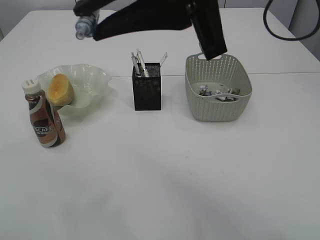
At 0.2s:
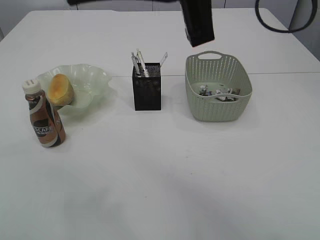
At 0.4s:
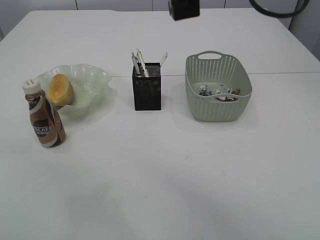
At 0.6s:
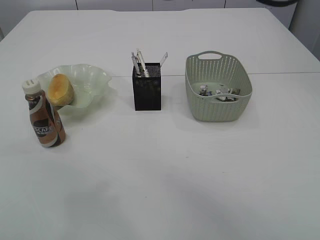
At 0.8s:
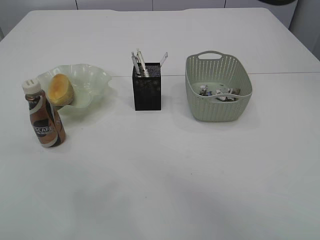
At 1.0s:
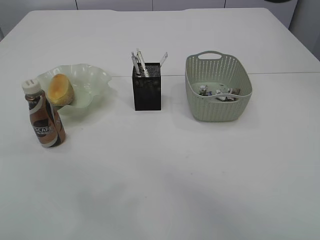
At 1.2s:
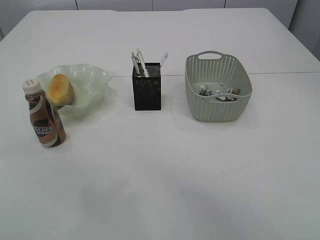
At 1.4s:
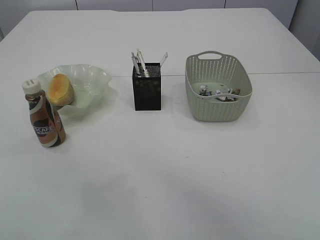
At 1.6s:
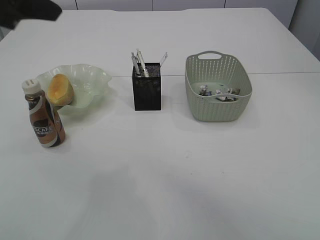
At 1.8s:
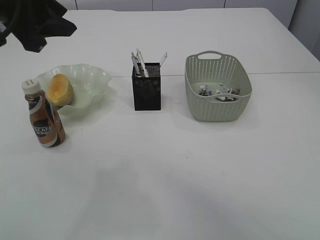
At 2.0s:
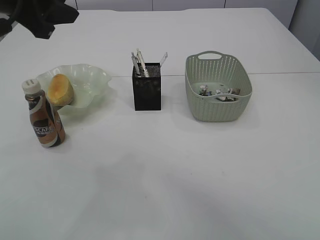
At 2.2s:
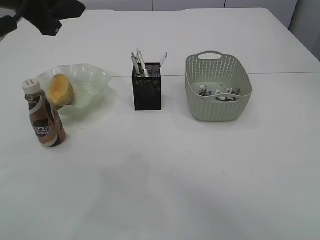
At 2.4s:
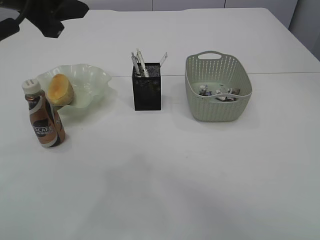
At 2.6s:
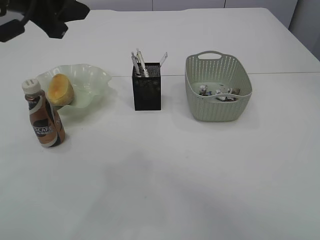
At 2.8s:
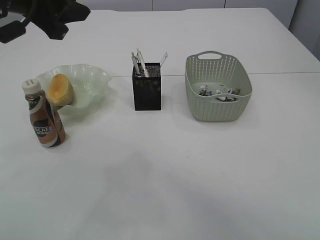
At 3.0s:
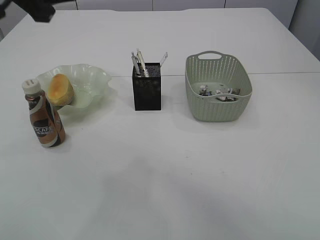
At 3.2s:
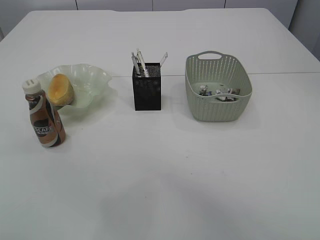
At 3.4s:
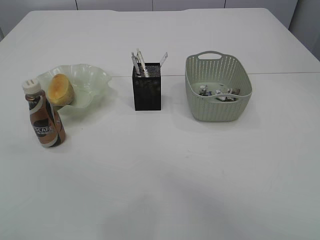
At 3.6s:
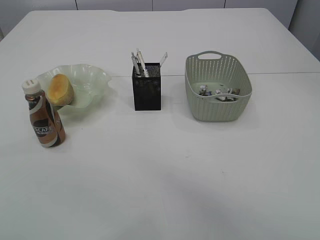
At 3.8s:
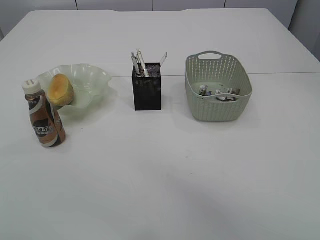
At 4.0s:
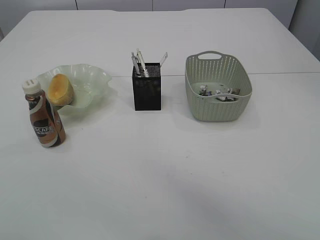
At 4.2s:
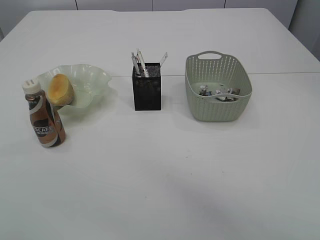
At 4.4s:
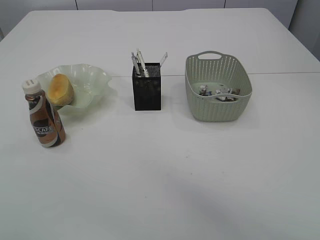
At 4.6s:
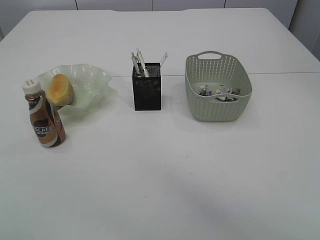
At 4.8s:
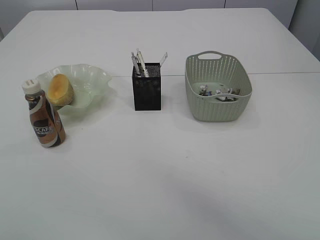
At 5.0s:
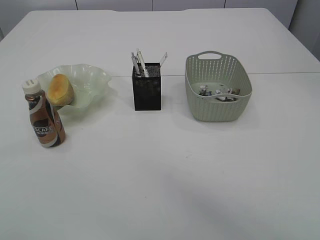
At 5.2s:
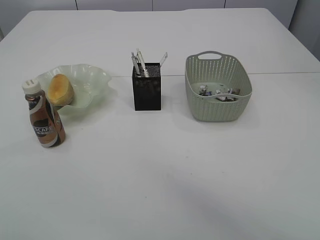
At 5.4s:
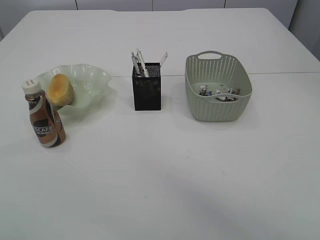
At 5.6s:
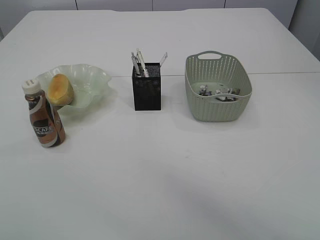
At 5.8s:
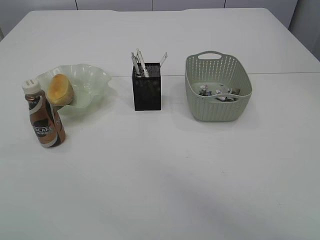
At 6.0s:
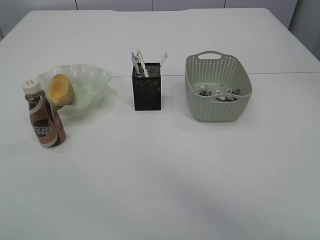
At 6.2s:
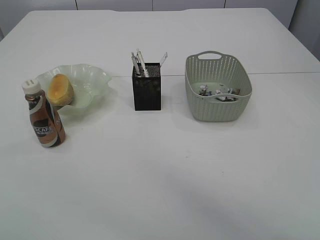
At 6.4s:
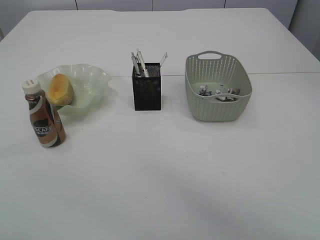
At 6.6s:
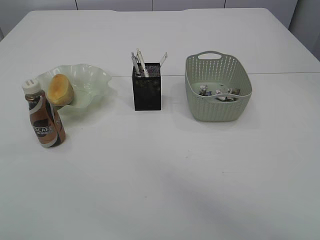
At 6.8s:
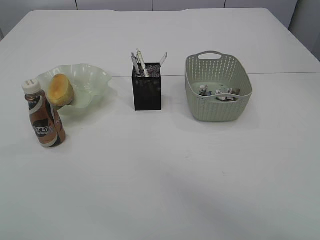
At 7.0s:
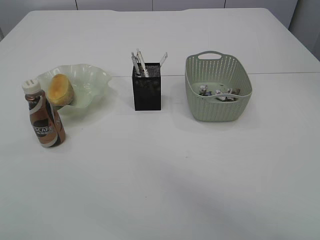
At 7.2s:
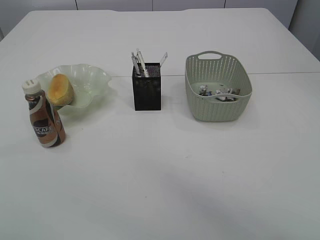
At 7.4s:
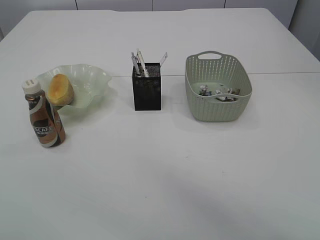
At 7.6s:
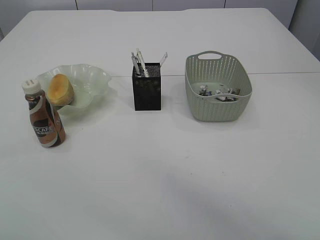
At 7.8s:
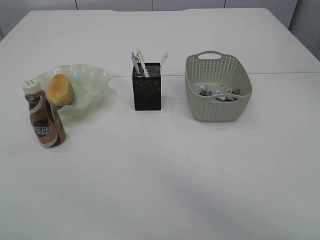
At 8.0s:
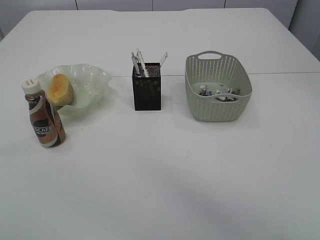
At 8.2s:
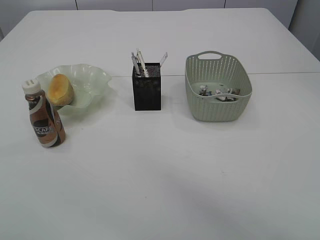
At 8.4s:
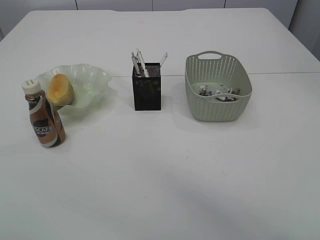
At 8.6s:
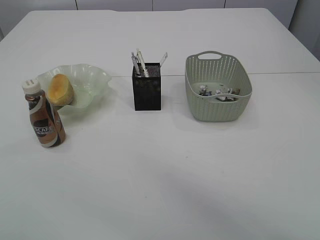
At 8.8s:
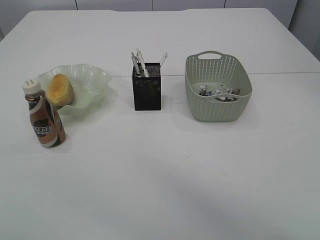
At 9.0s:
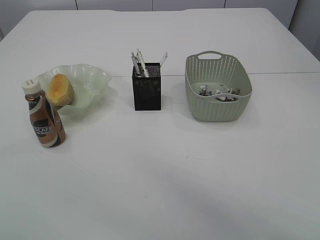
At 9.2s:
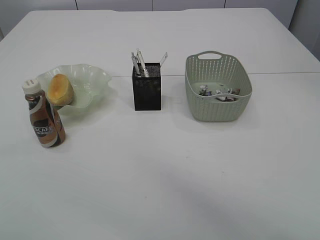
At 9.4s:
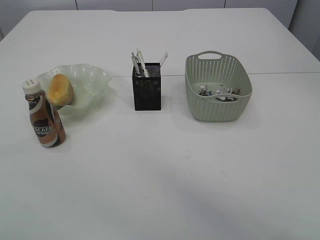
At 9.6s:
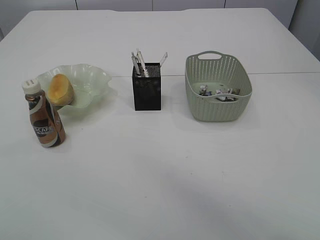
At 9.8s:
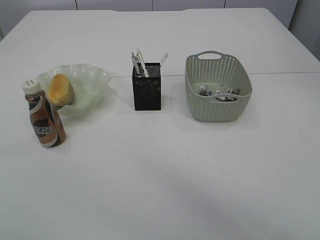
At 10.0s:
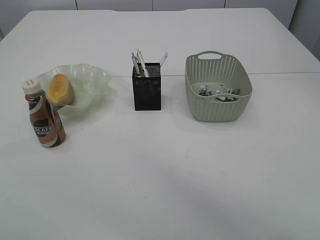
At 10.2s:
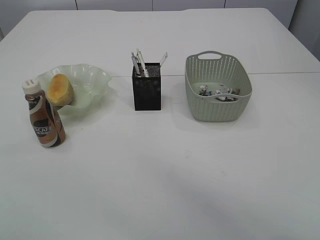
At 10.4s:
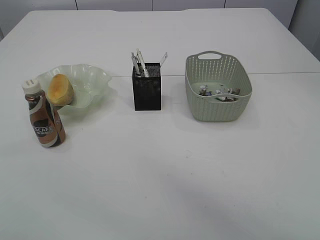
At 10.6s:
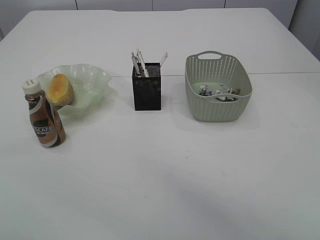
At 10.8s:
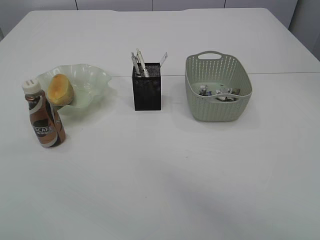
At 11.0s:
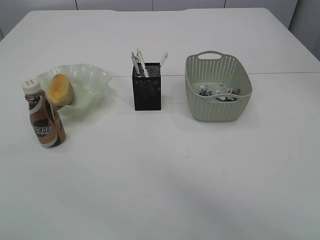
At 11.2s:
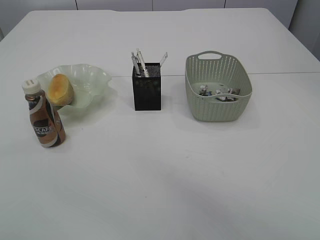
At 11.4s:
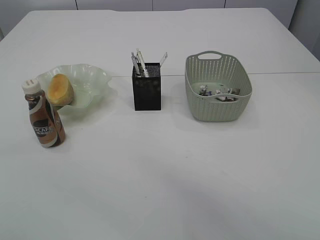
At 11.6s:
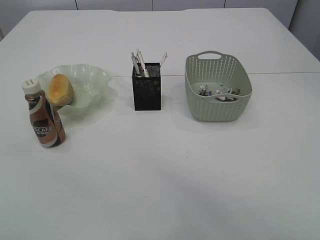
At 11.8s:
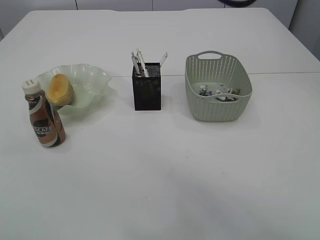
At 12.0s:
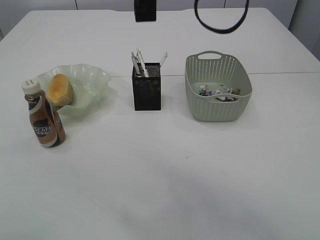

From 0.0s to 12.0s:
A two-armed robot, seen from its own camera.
From 0.0s to 1.6s: The left gripper moves downward, roughly 5 cm; the right gripper travels upward by some 5 cm.
From 1.6s to 3.0s: The grippers make only small movements.
From 3.0s to 4.4s: The left gripper moves backward and upward, roughly 15 cm.
From 6.0s to 7.6s: Neither gripper changes place.
From 7.6s to 10.4s: Both grippers stay put.
From 10.4s to 12.0s: The right gripper ends up approximately 5 cm from where it was. Meanwhile the left gripper travels forward by roughly 5 cm.

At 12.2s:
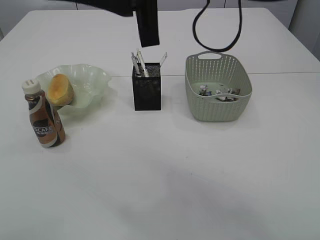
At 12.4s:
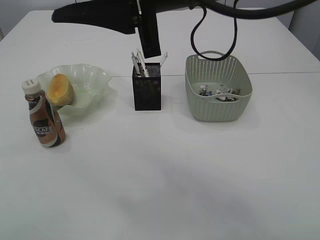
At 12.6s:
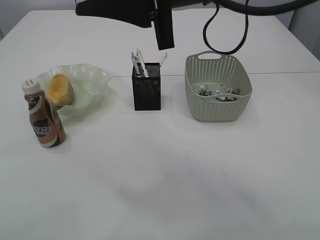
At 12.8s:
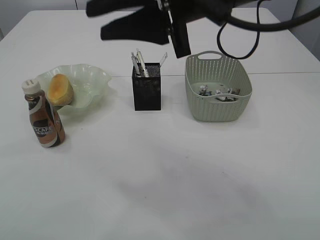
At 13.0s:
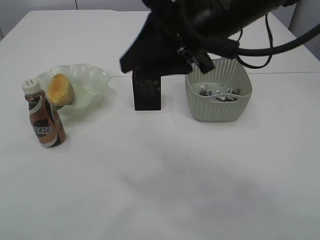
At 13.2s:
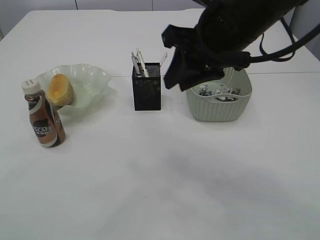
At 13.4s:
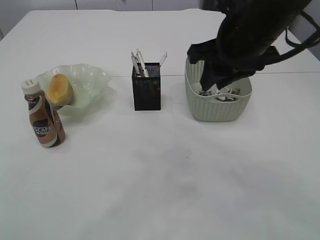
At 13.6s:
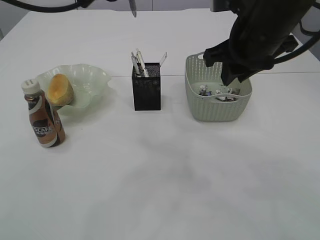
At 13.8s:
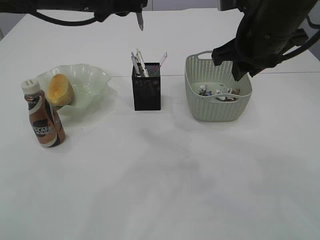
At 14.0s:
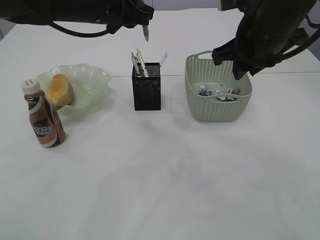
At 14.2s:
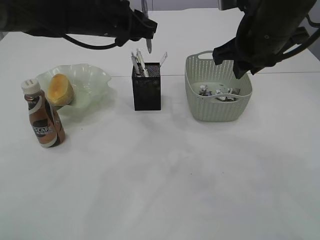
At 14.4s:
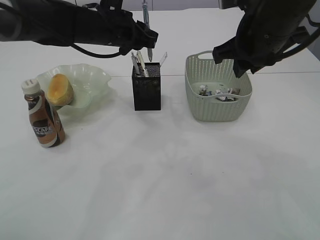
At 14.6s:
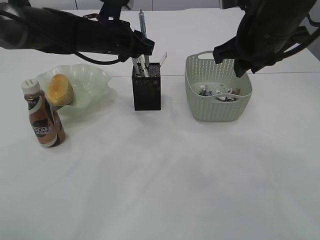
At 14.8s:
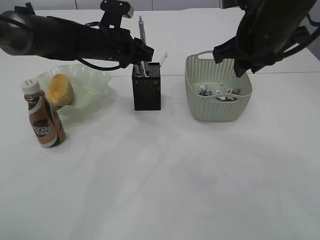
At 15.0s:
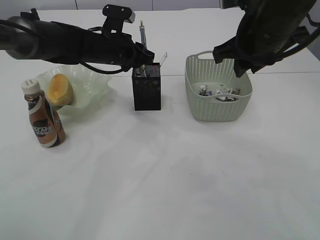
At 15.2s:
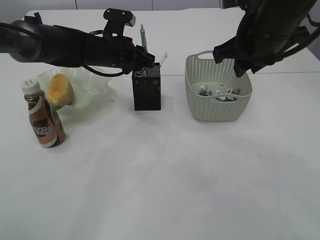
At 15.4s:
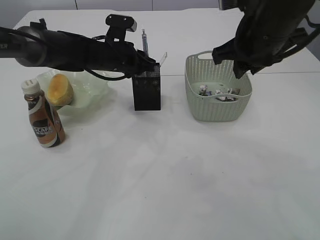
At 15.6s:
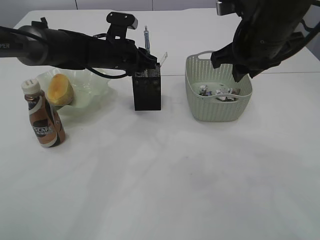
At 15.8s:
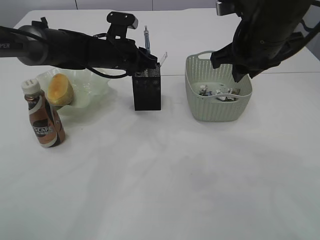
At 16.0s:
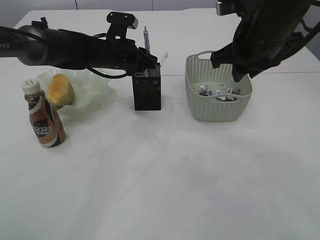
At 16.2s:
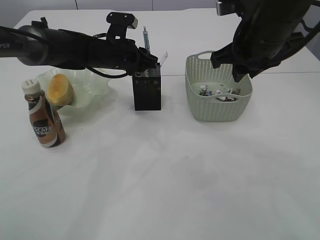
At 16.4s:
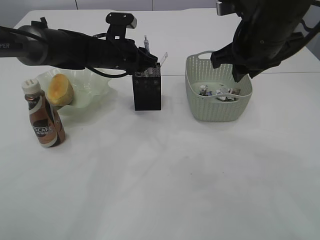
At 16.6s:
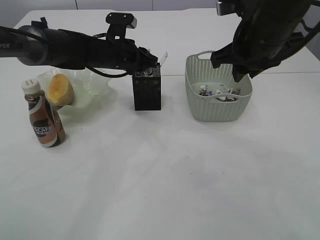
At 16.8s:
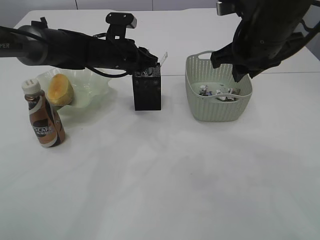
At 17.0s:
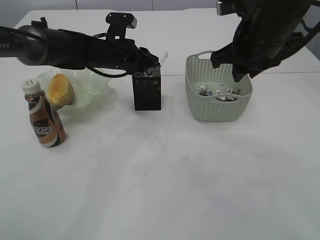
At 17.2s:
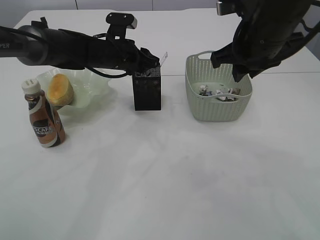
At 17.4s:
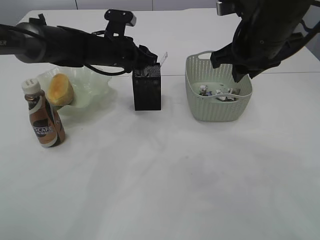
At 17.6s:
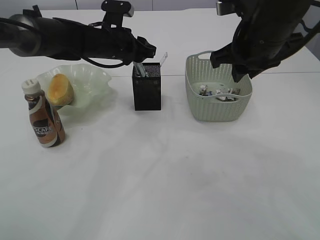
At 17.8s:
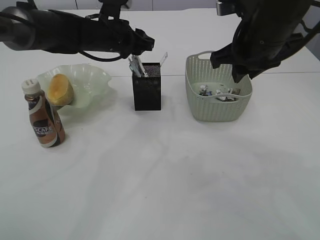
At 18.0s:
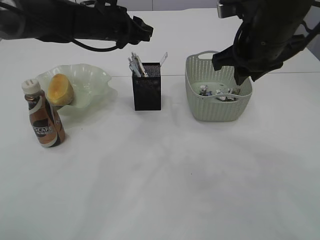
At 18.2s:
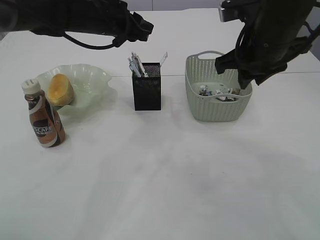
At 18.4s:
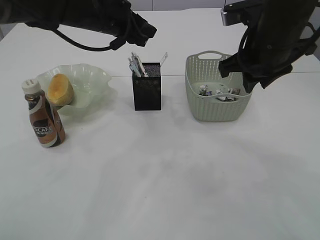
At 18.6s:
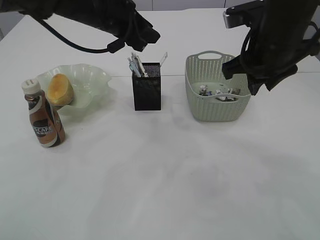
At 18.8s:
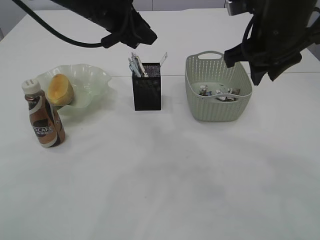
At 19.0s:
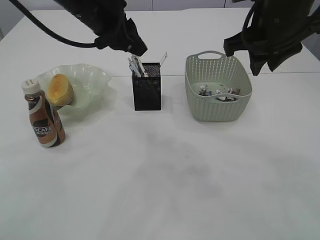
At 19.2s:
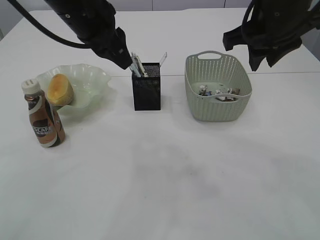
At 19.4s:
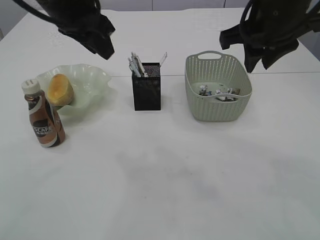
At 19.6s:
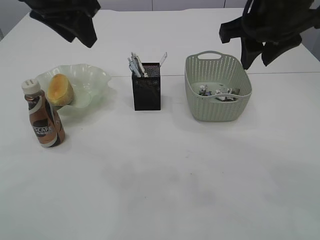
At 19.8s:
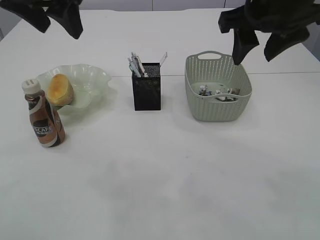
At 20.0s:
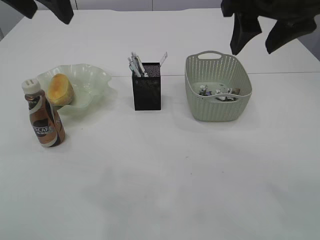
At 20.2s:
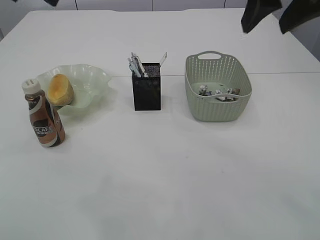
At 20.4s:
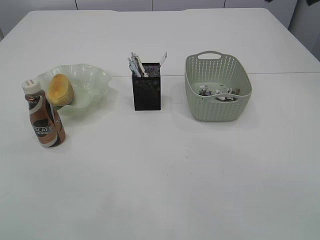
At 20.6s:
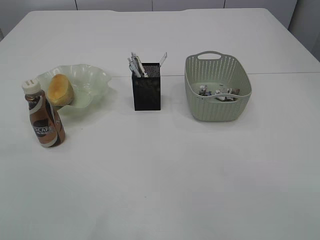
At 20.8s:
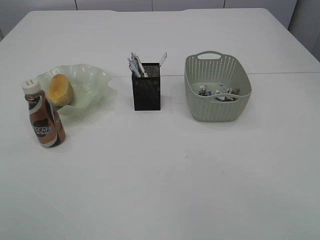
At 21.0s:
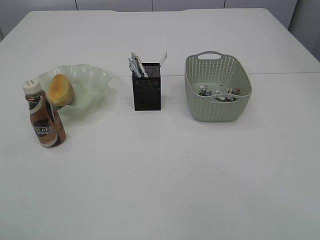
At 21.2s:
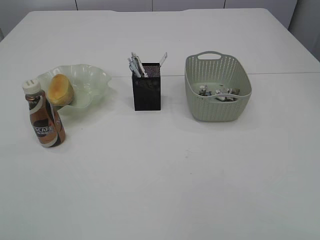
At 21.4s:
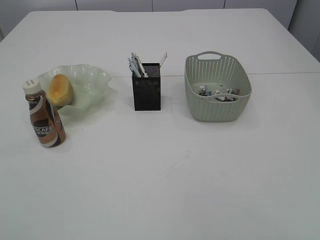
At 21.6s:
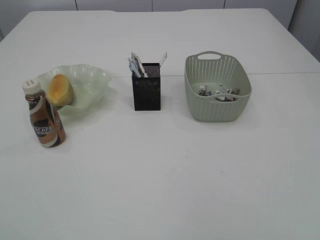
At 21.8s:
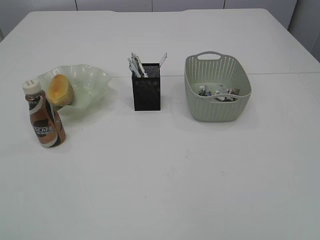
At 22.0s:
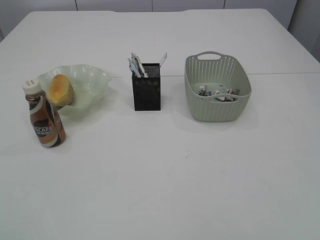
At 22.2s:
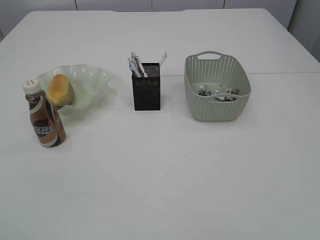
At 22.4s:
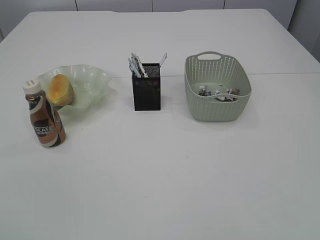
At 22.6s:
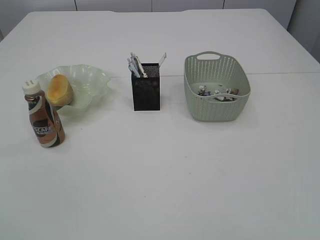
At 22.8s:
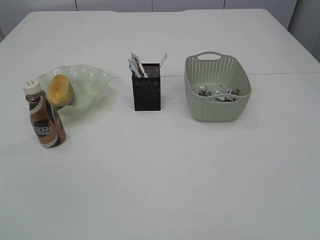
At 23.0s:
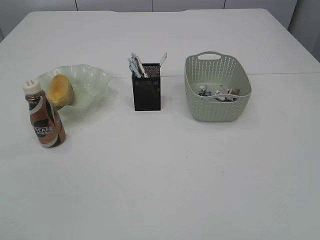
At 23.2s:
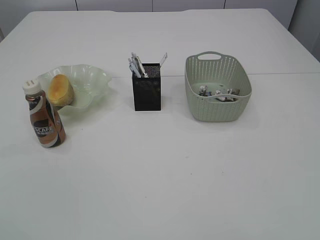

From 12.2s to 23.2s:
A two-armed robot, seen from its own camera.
Step, from 14.2s to 19.4s: Place the pen into the pen holder.
From 12.2s to 13.8s: The right gripper travels to the right, downward and forward by approximately 15 cm. The left gripper moves forward, downward and to the right, some 20 cm.
From 13.8s to 15.4s: The left gripper goes approximately 15 cm downward and forward.
From 15.4s to 17.0s: Neither gripper changes place.
From 17.0s to 18.4s: The left gripper heads upward, covering some 10 cm.
From 18.4s to 20.0s: The right gripper moves upward, approximately 10 cm, and opens. Meanwhile the left gripper shifts roughly 20 cm upward, backward and to the left, and opens up.
From 20.0s to 21.6s: The right gripper is displaced backward by about 30 cm, while the left gripper travels backward and to the left by about 30 cm.
